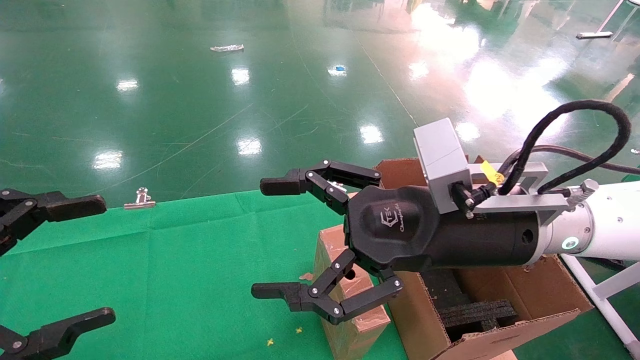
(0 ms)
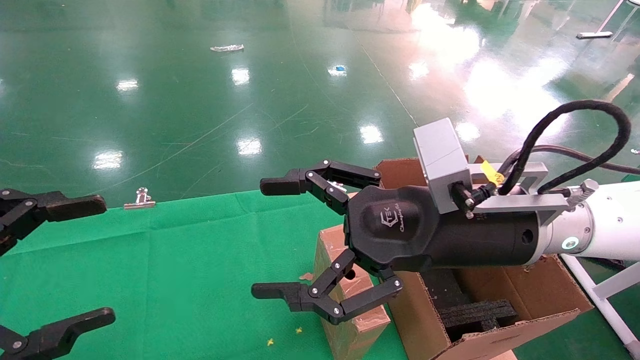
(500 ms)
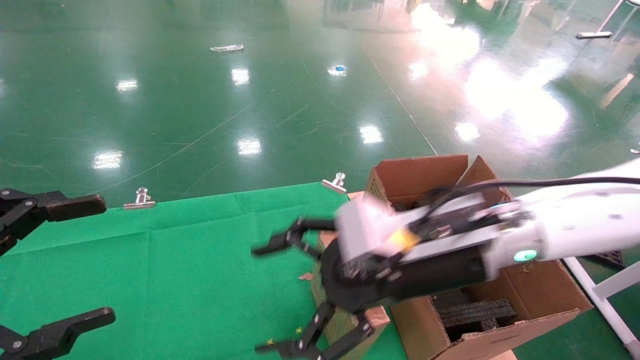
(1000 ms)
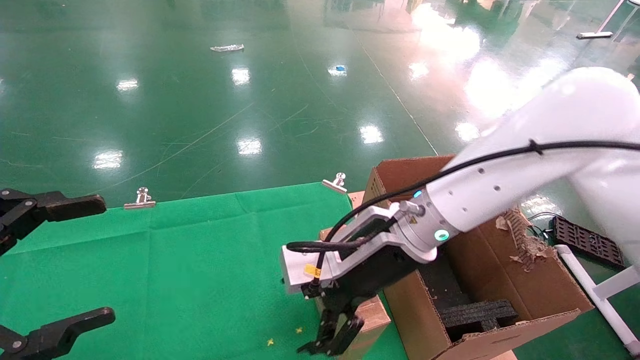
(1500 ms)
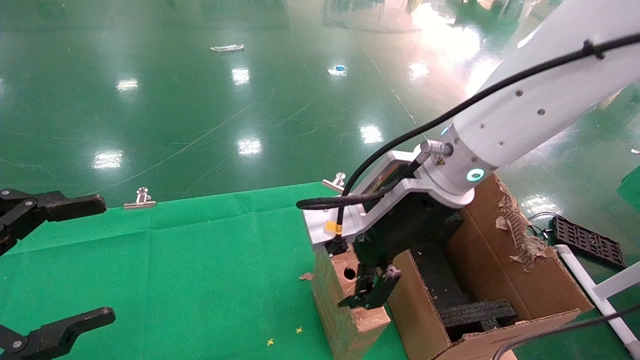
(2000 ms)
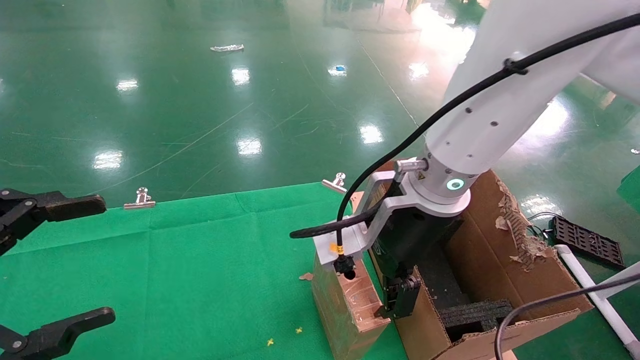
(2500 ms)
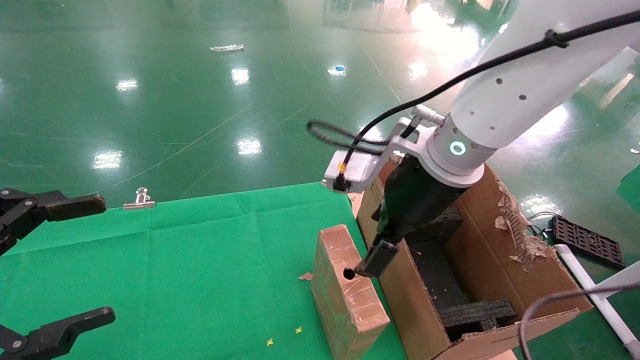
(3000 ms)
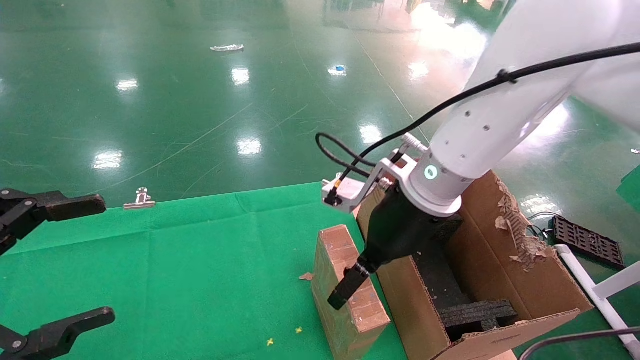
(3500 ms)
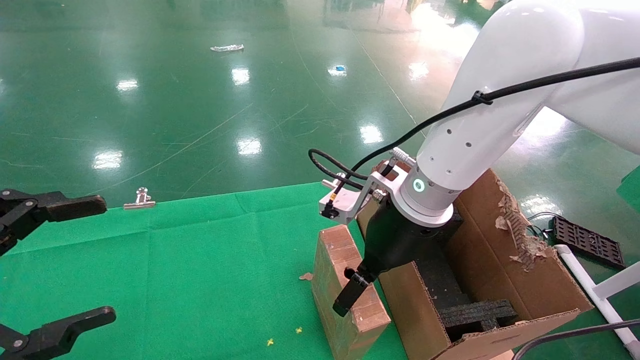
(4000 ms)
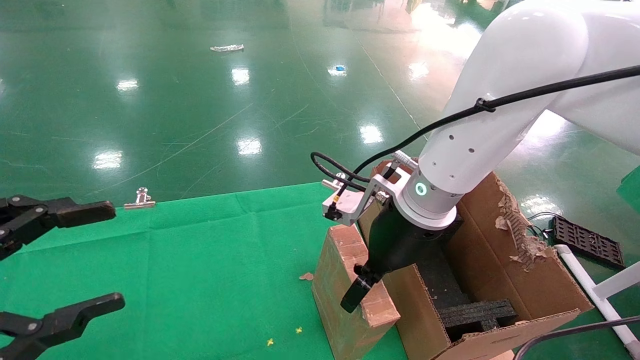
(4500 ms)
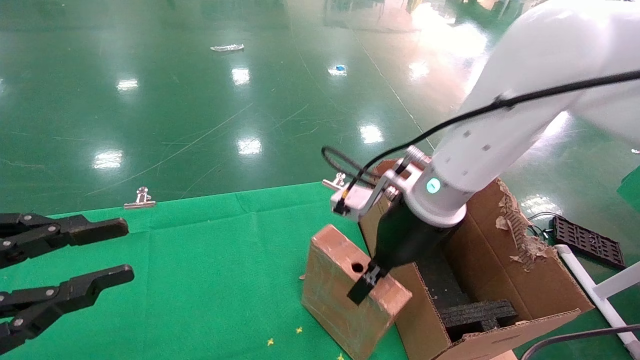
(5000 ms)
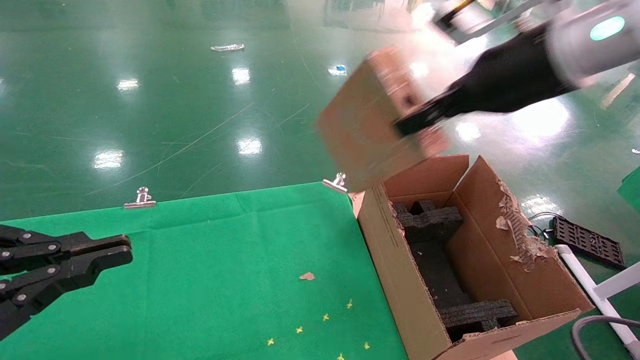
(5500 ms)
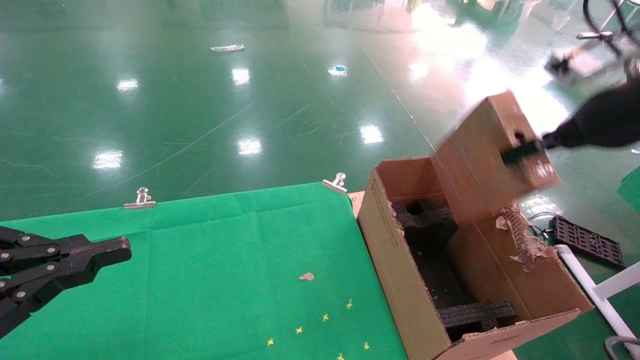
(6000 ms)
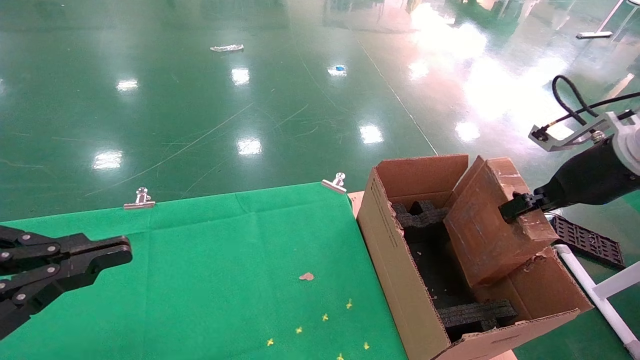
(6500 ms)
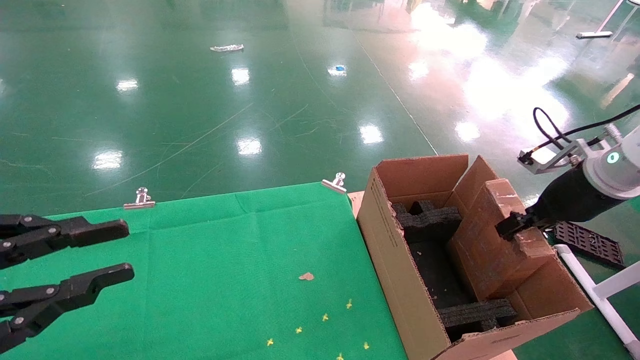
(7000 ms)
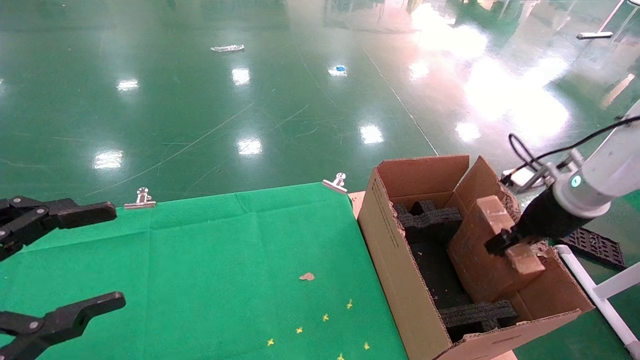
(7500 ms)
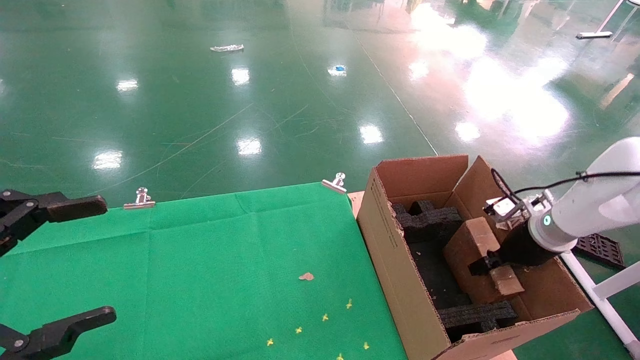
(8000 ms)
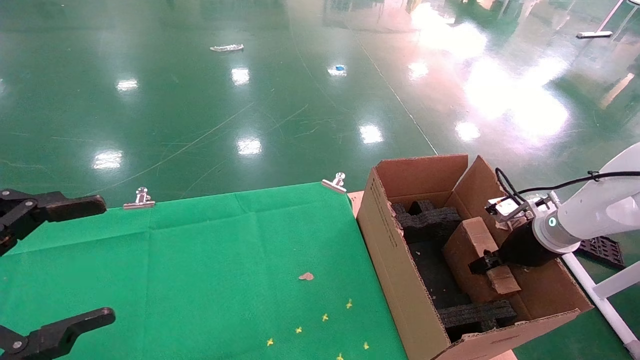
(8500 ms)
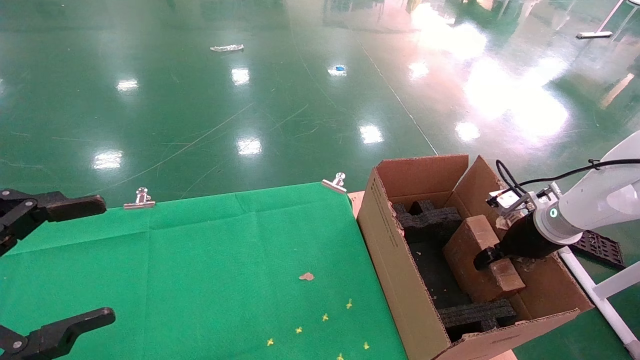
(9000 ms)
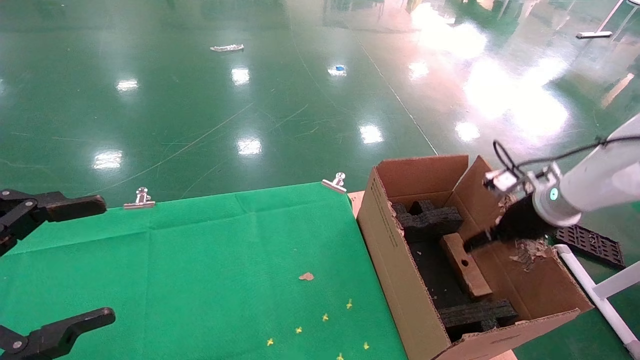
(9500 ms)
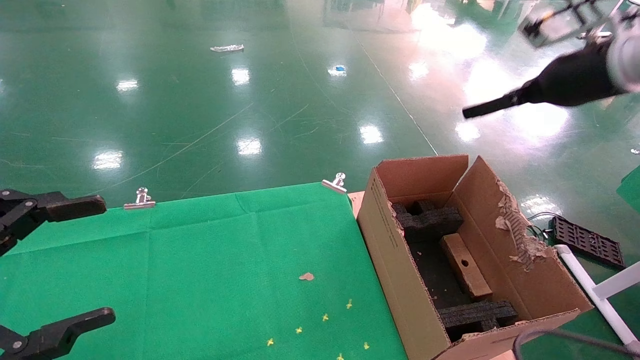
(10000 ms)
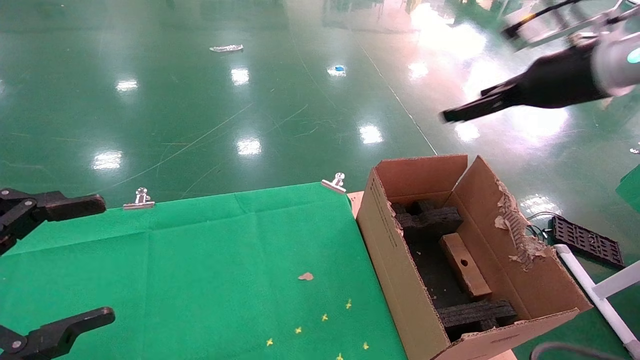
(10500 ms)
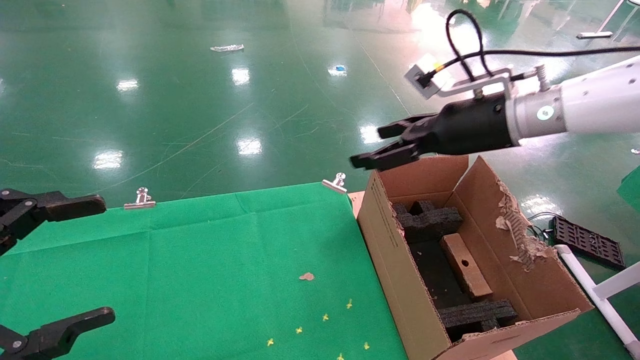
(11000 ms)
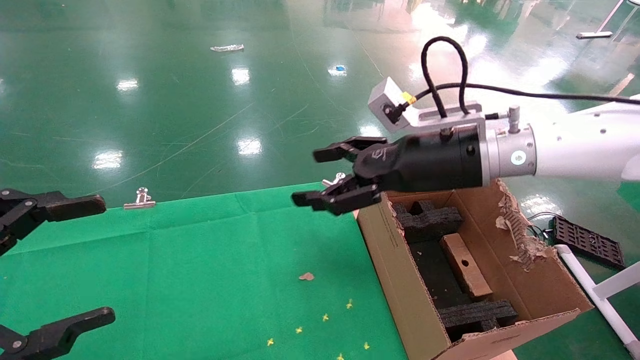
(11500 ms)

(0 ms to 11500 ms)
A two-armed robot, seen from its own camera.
Task of the whole recording: using a robotic arm to pick up a cardboard box and palace it the carton.
Step, 1000 ms - 5000 ms: Pick up the mouse and the power cord paper box.
Step, 5500 ms - 9500 ms: Place the mouse and the power cord paper box into the container.
0 ms - 2000 ms: The right gripper travels forward and to the left by some 10 cm.
4000 ms - 6000 ms: The left gripper closes up. The right gripper heads to the right and upward, covering about 25 cm, and closes.
6000 ms - 7500 ms: The left gripper opens; the right gripper shifts about 20 cm downward and forward.
7500 ms - 9500 ms: The right gripper opens up. The left gripper opens.
9500 ms - 11500 ms: The right gripper is displaced to the left and upward by about 25 cm.

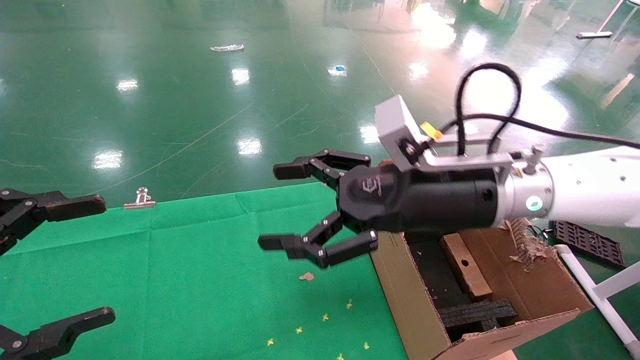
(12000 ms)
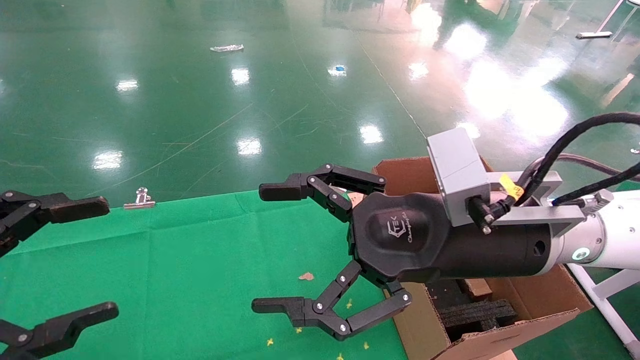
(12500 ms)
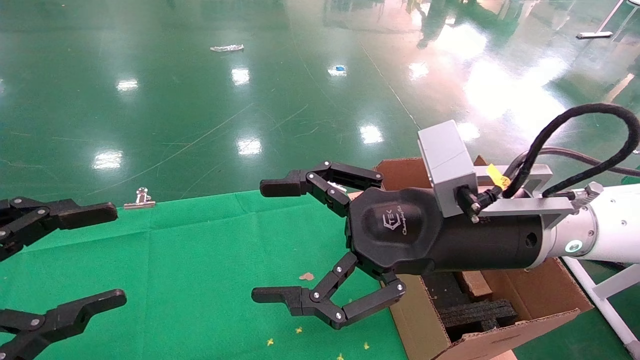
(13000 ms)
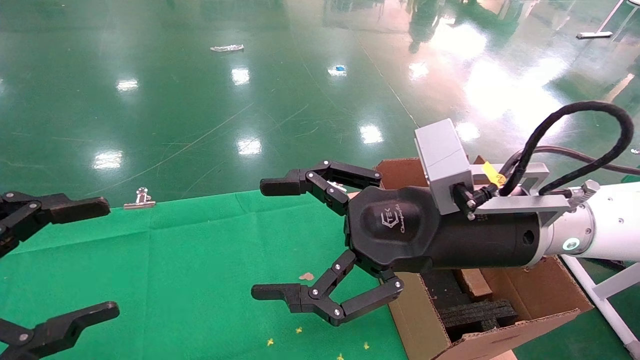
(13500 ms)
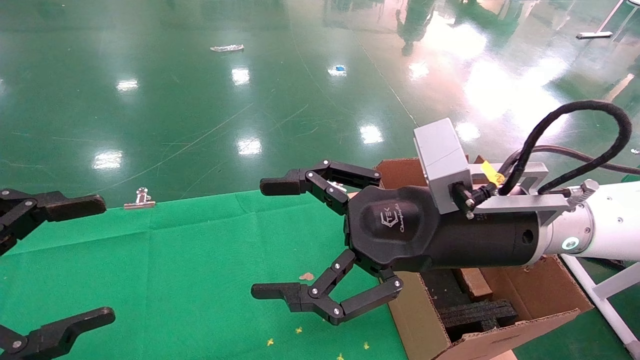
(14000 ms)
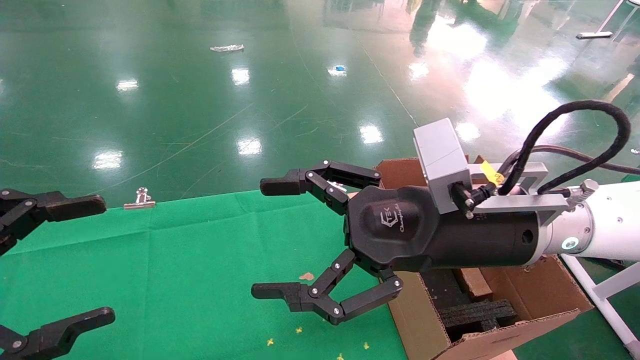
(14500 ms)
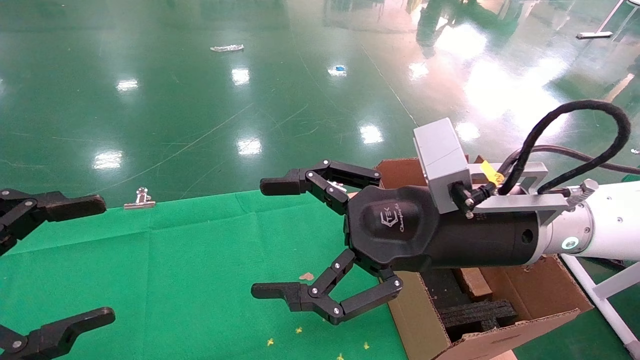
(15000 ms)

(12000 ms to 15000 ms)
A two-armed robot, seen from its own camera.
Task of the whole recording: using a robotic arm to pick up a cardboard box and palace it the carton.
13500 ms - 15000 ms: Neither gripper changes place.
